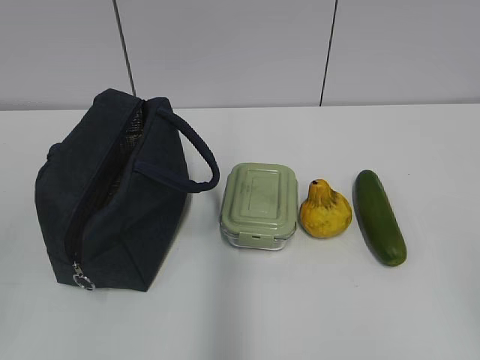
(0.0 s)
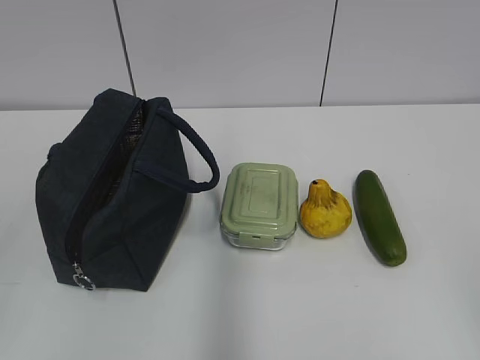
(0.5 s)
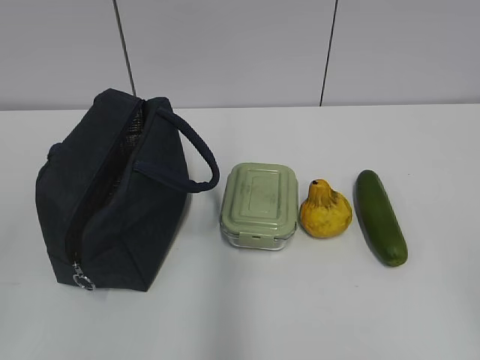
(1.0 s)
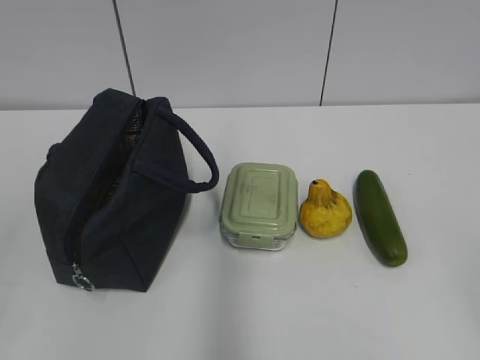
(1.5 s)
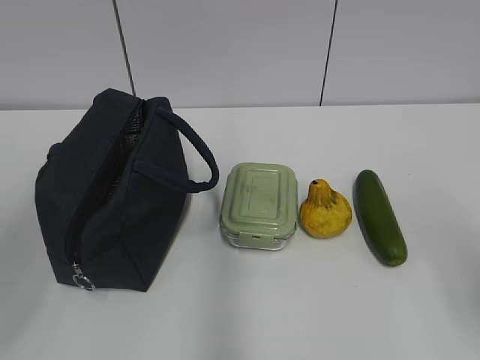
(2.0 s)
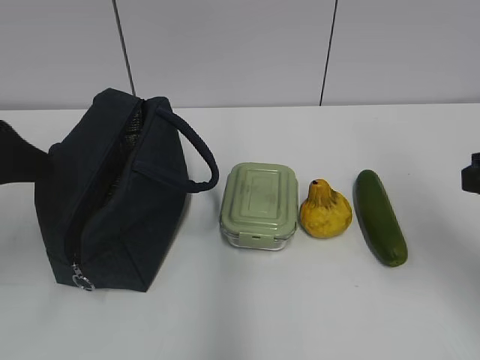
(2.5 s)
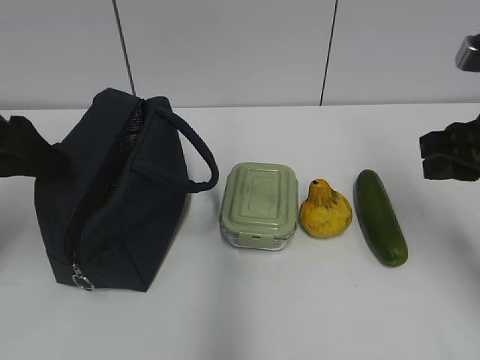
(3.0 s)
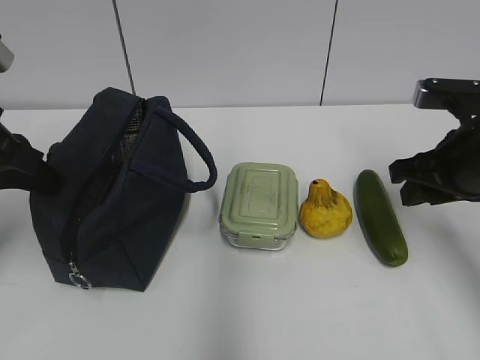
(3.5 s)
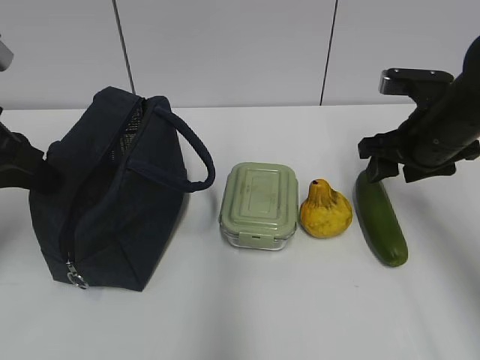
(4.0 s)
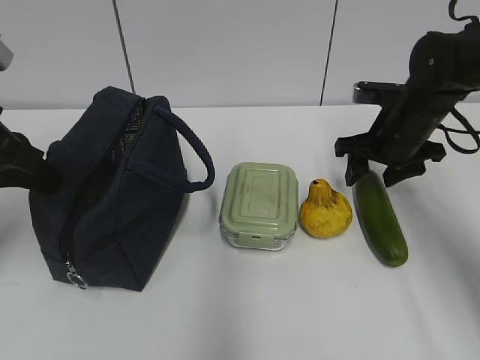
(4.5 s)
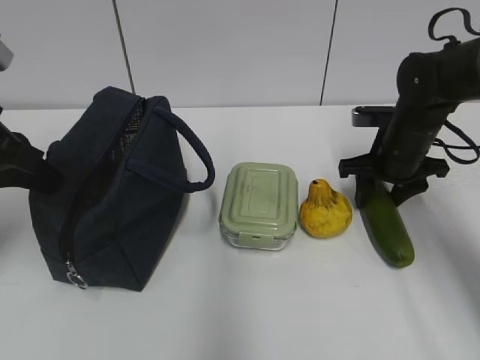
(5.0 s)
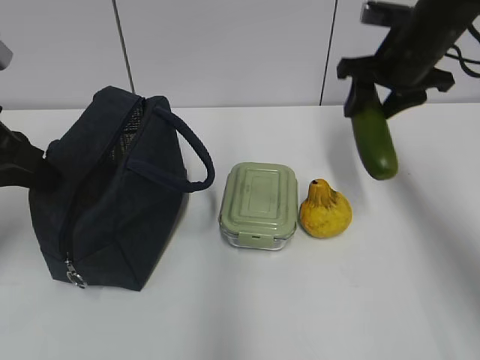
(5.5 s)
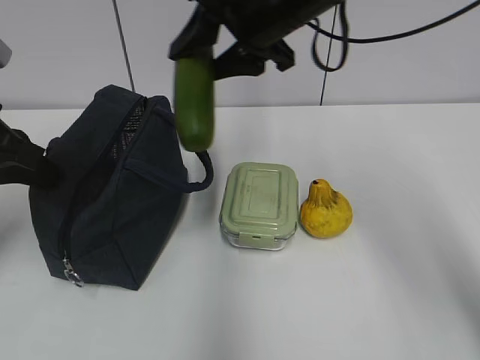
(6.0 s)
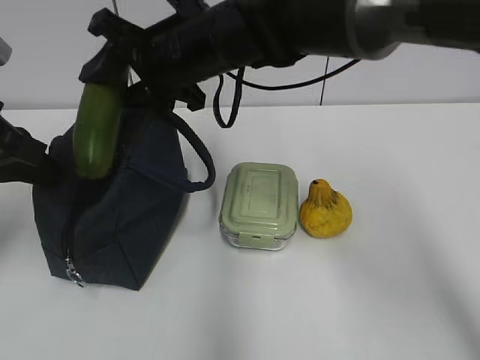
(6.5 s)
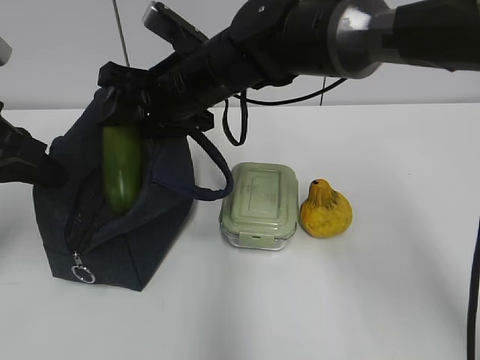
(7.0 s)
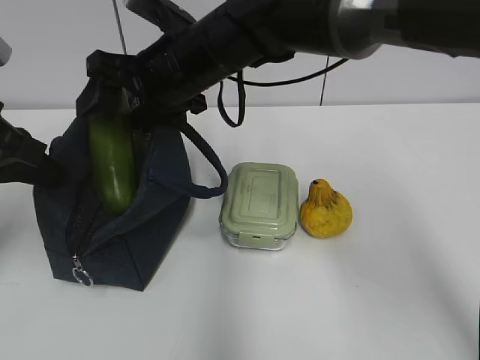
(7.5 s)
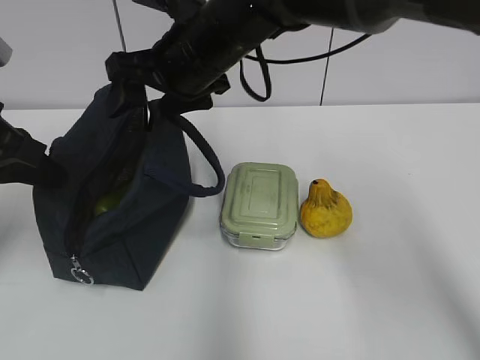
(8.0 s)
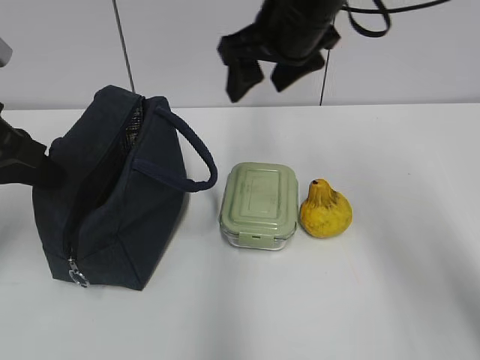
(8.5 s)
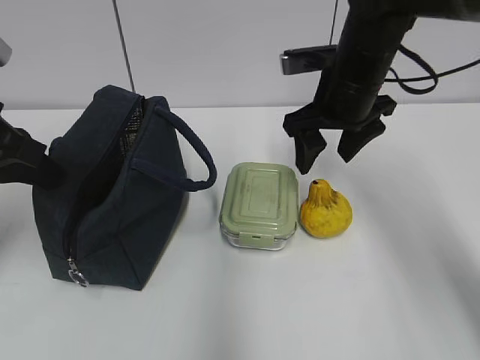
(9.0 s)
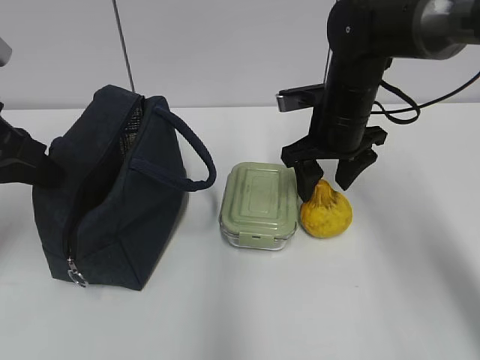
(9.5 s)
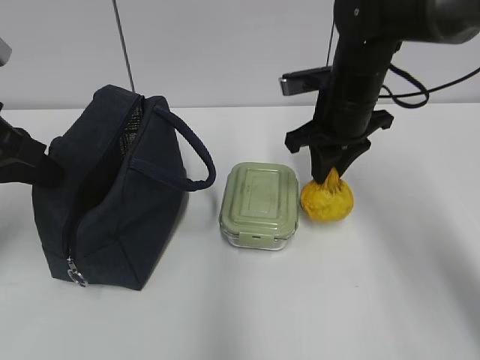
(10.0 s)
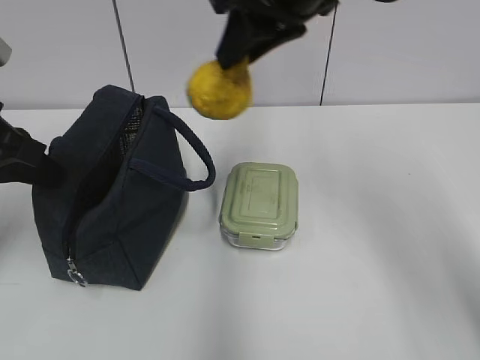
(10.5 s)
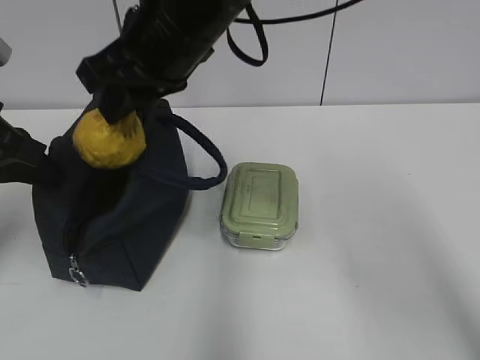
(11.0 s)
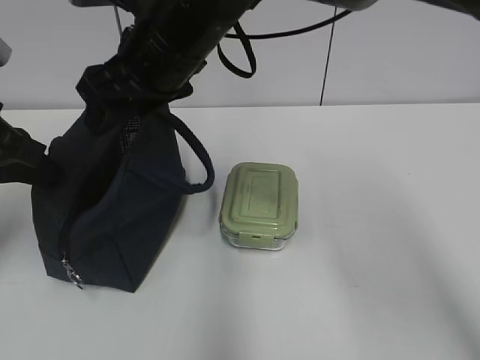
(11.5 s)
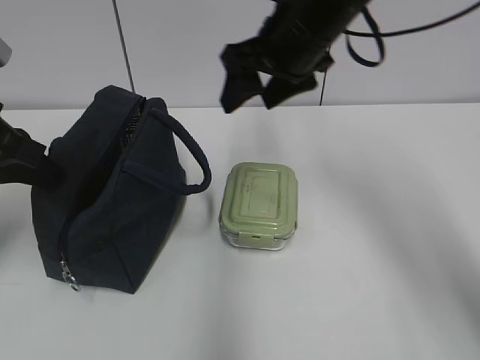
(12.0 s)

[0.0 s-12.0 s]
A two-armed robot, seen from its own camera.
2.0 to 4.0 s: The left gripper travels forward by some 15 cm, and closes its fingers. The right gripper moves forward, about 25 cm.
4.0 to 6.0 s: The right gripper travels to the left and upward by about 20 cm.
6.0 to 8.0 s: The right gripper shifts roughly 5 cm to the left.
8.0 to 10.0 s: The right gripper goes about 15 cm to the right and downward, and closes its fingers.
10.0 to 12.0 s: The right gripper goes approximately 10 cm upward, moves about 20 cm to the left and comes back, and opens.

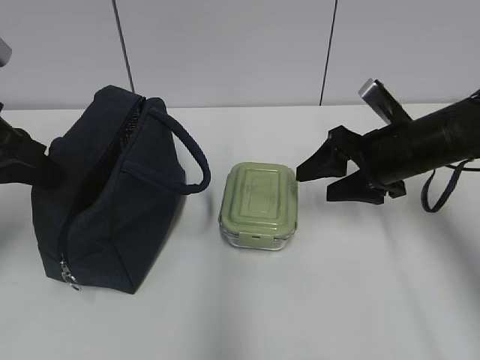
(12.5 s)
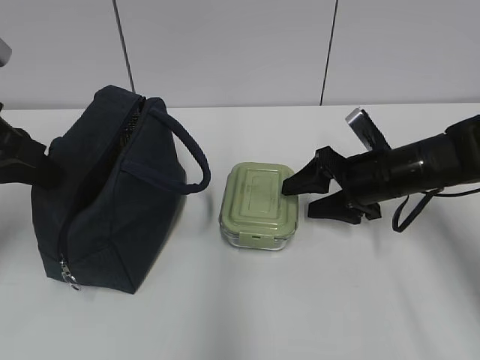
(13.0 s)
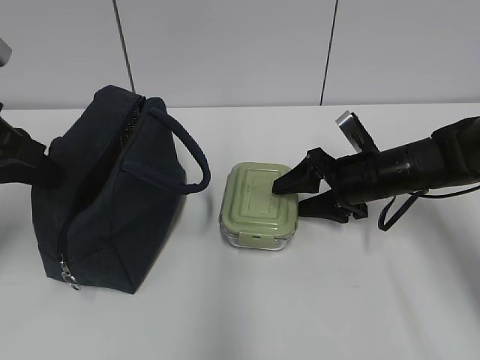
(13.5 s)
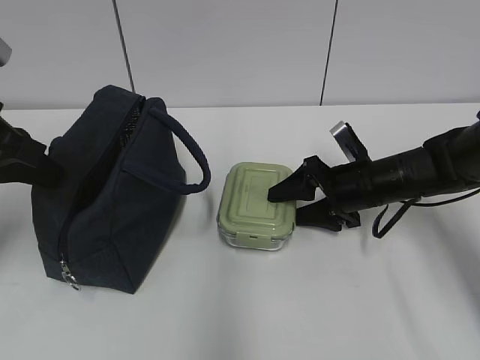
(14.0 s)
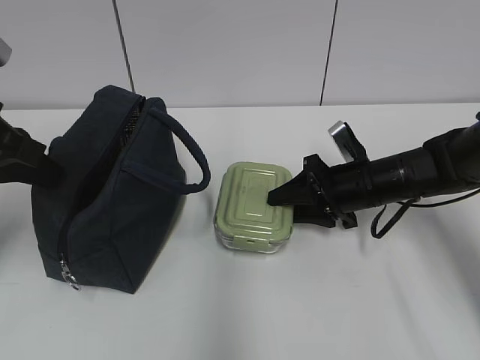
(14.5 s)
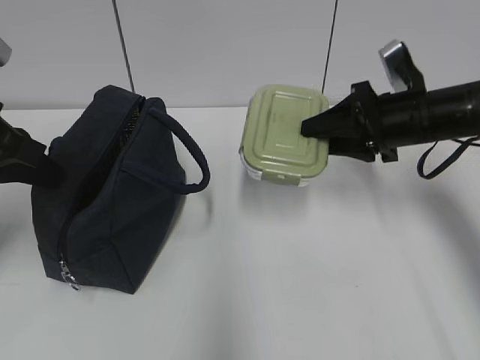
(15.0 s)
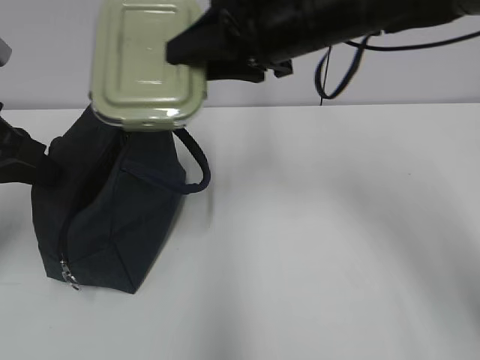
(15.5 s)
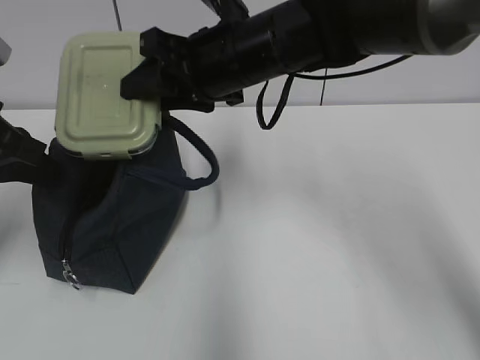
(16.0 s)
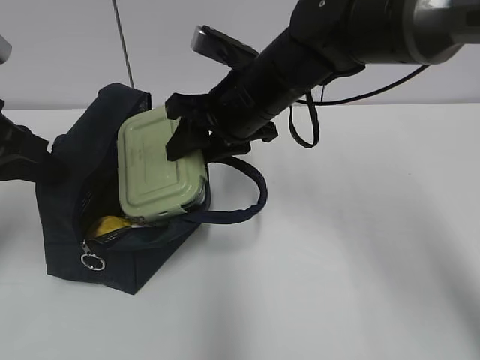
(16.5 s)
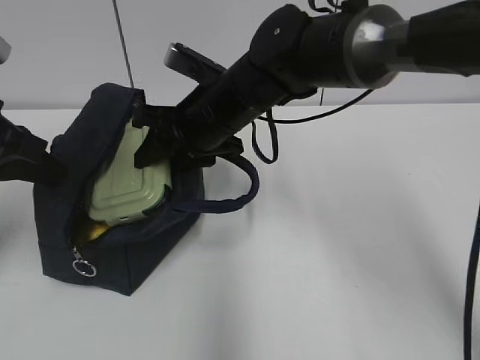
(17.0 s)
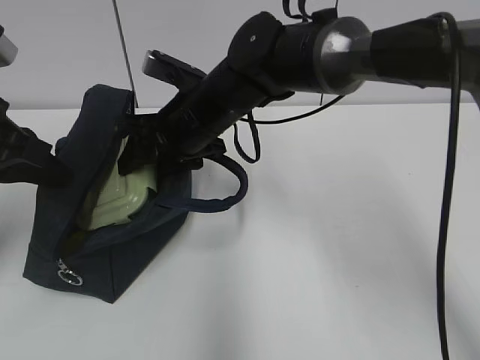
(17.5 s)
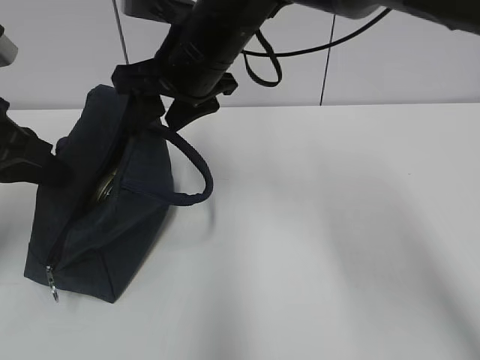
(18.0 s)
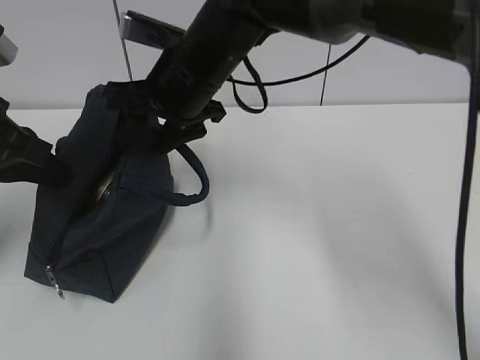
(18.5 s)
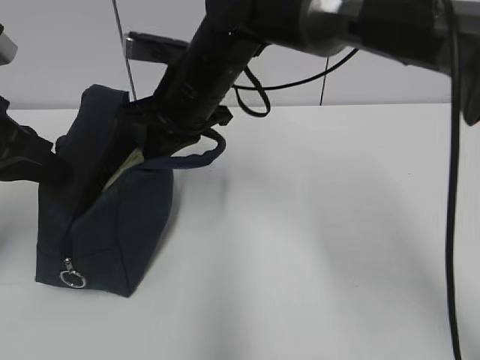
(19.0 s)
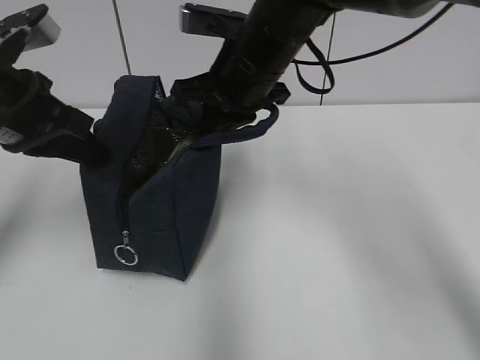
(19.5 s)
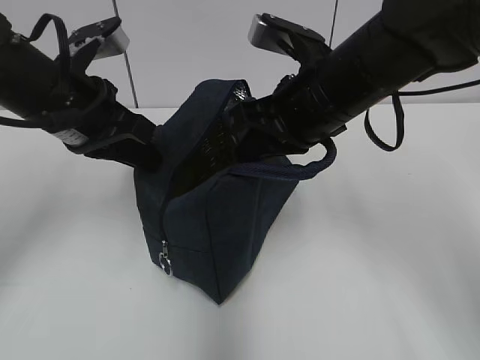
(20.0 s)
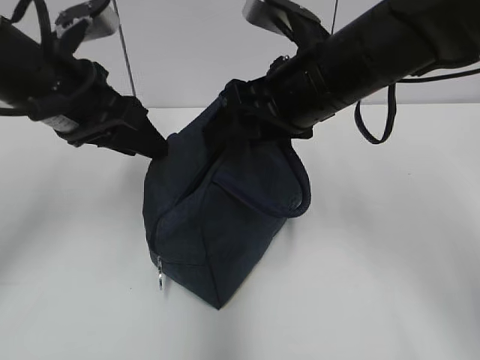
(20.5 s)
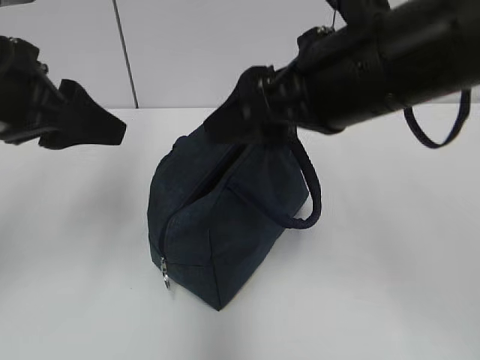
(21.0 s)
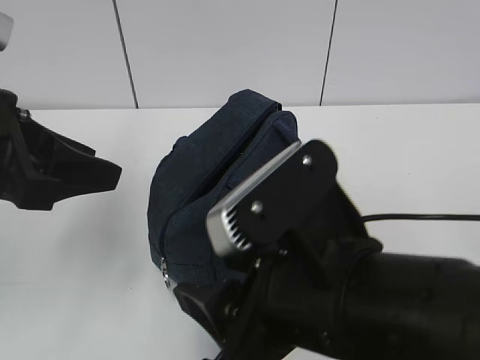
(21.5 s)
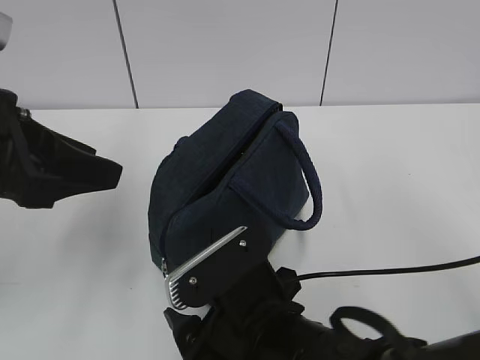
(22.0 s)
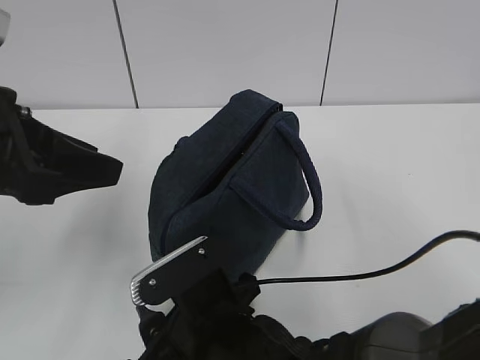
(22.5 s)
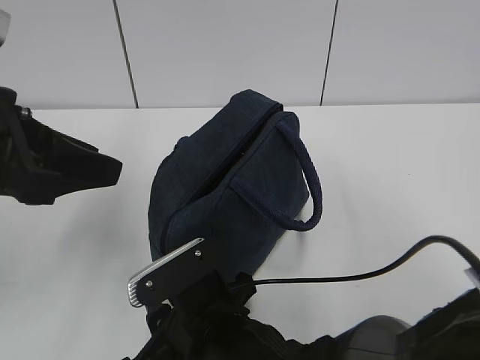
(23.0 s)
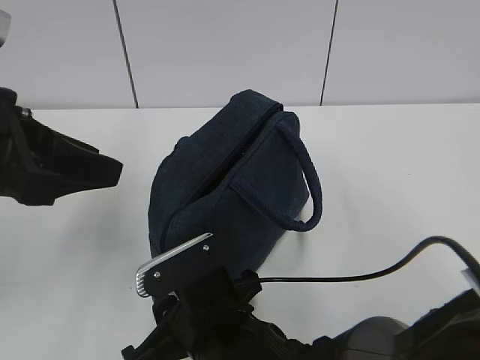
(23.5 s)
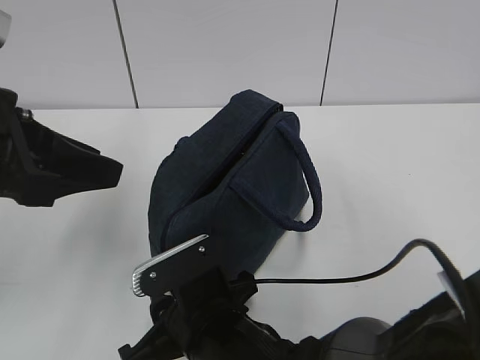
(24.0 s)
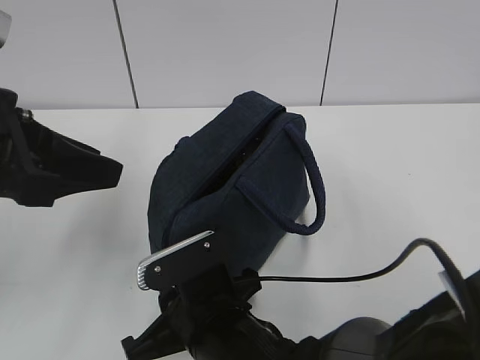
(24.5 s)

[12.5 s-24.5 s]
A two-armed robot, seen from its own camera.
12.5 to 14.5 s: The right gripper moves downward, roughly 5 cm, and closes up.
14.5 to 16.5 s: The right gripper shifts roughly 20 cm to the left and upward.
16.5 to 18.5 s: The right gripper heads to the left, covering approximately 5 cm.
18.5 to 20.5 s: The right gripper moves to the right and backward, roughly 15 cm, and closes, then opens again, while the left gripper shifts some 10 cm to the right, and opens.
20.5 to 22.5 s: The right gripper travels downward, backward and to the left by some 25 cm. The left gripper heads backward, covering some 10 cm.
22.5 to 24.5 s: The right gripper closes.

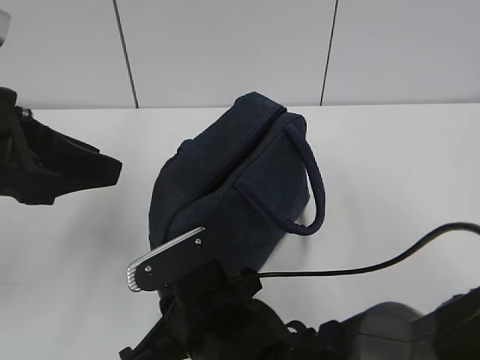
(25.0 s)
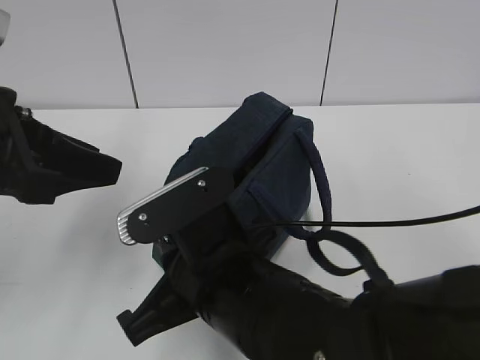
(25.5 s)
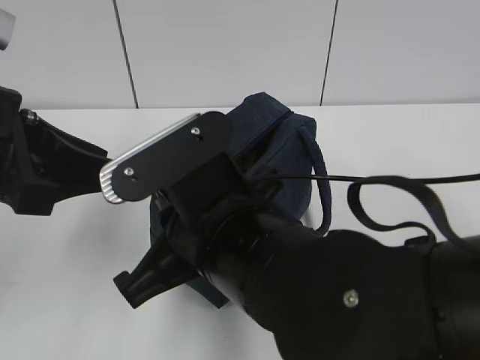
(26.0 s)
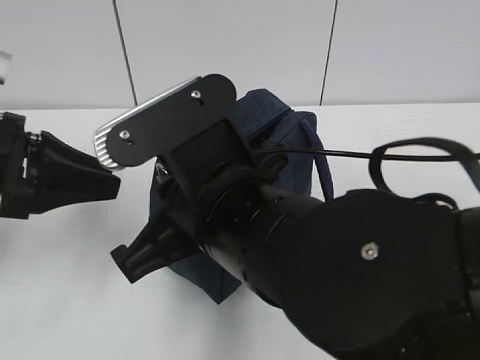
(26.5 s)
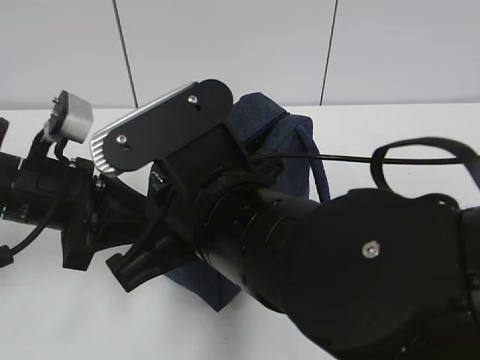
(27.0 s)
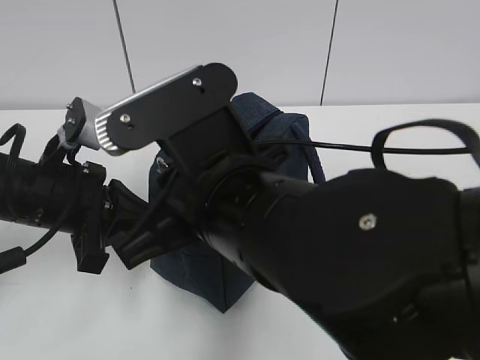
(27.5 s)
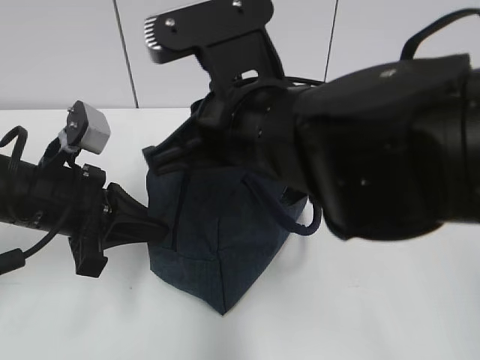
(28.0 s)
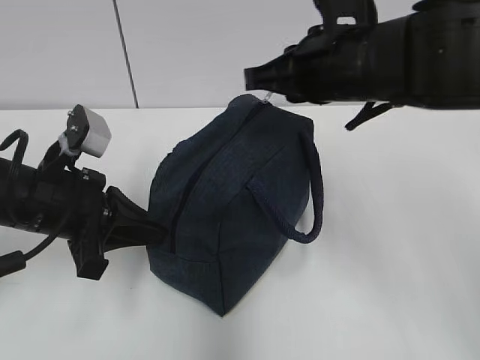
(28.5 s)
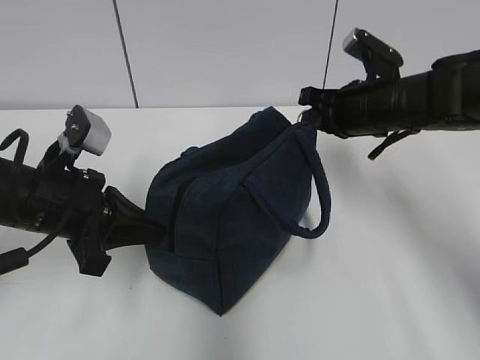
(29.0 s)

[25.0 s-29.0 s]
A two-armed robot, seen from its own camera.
25.0 to 27.0 s: The right gripper is displaced upward by approximately 15 cm. Meanwhile the left gripper goes about 10 cm downward and forward.
27.0 to 29.0 s: The left gripper closes, while the right gripper is displaced forward and to the right by some 30 cm.
